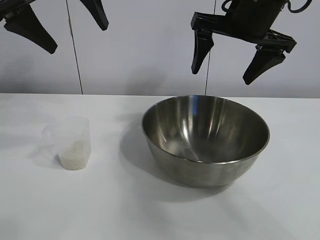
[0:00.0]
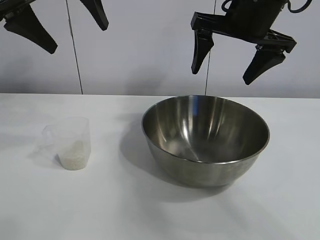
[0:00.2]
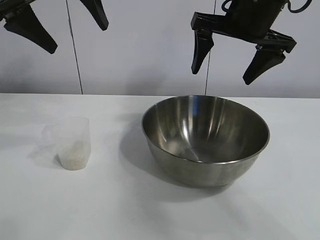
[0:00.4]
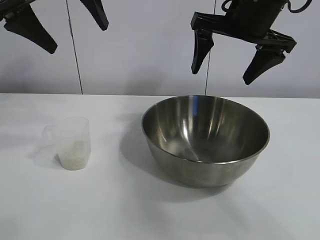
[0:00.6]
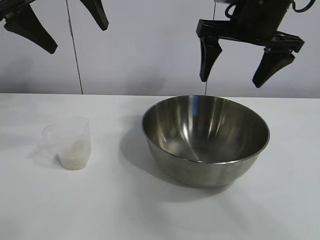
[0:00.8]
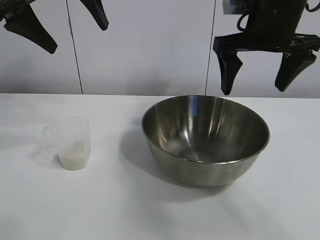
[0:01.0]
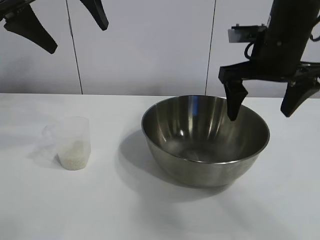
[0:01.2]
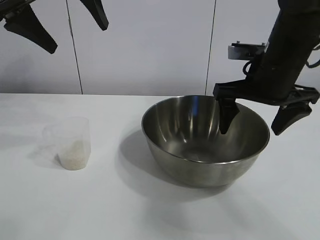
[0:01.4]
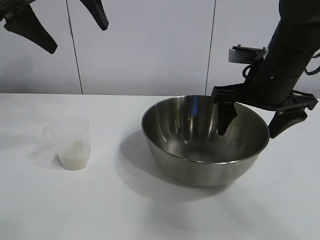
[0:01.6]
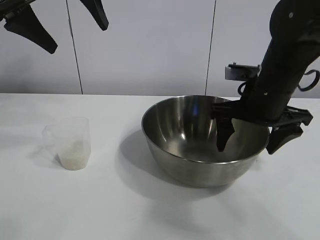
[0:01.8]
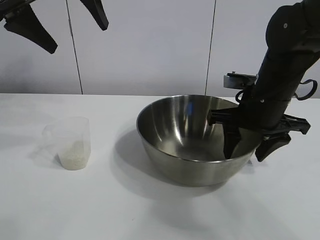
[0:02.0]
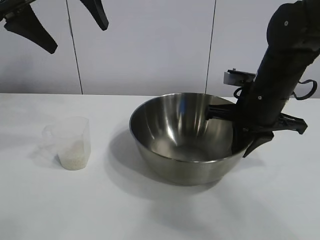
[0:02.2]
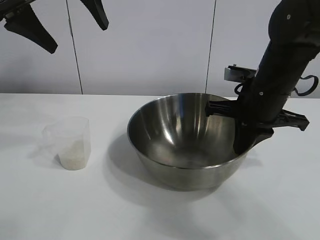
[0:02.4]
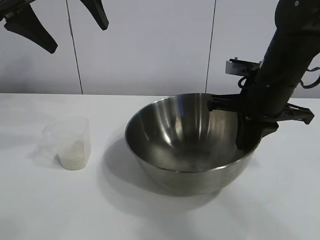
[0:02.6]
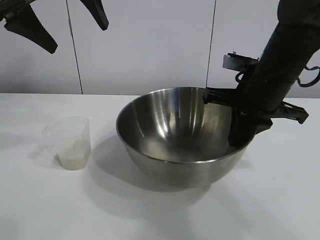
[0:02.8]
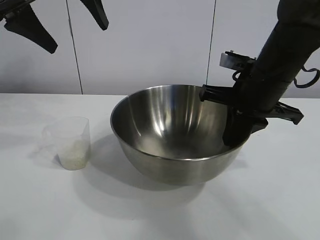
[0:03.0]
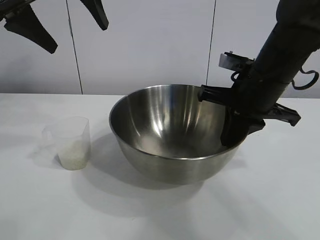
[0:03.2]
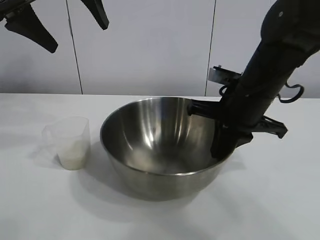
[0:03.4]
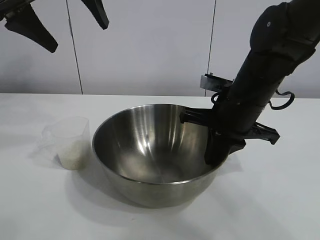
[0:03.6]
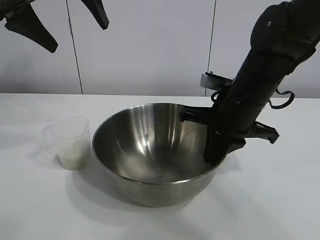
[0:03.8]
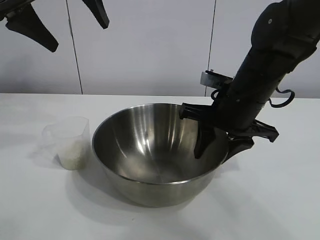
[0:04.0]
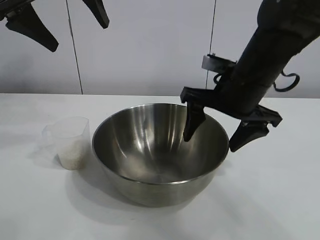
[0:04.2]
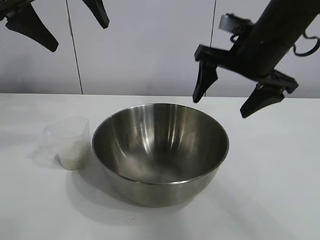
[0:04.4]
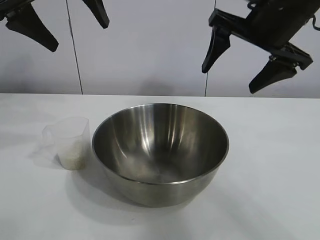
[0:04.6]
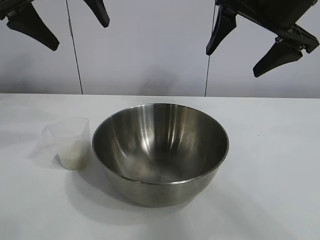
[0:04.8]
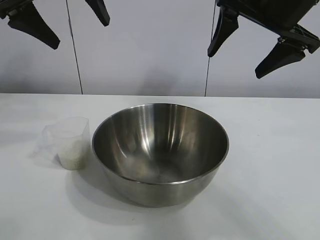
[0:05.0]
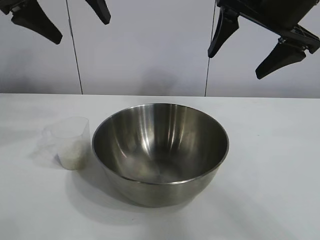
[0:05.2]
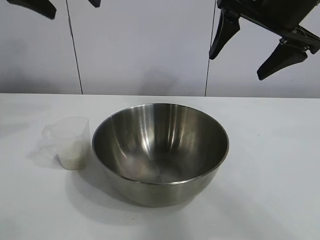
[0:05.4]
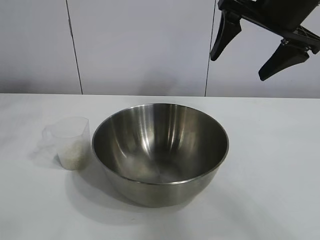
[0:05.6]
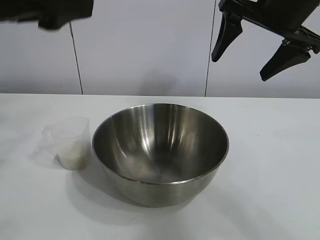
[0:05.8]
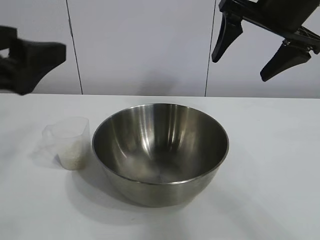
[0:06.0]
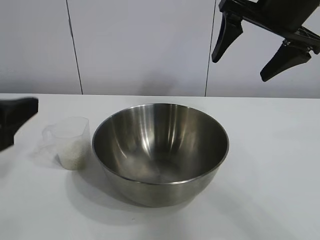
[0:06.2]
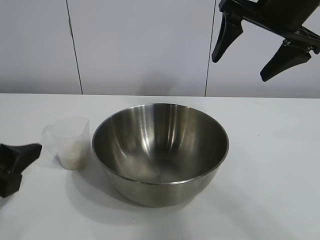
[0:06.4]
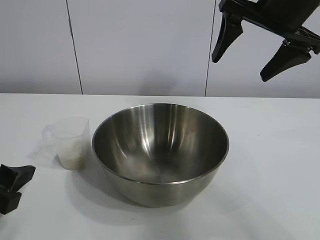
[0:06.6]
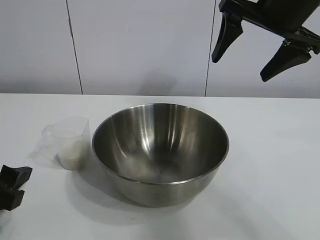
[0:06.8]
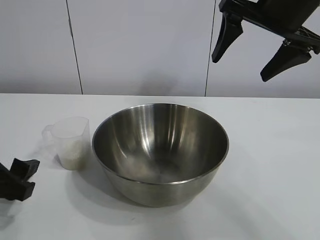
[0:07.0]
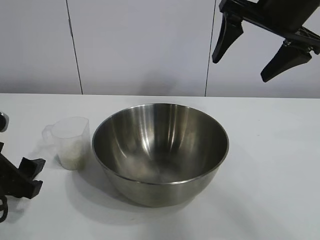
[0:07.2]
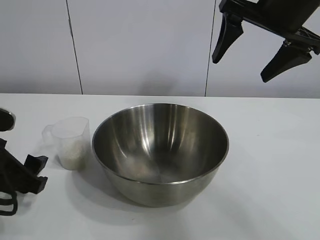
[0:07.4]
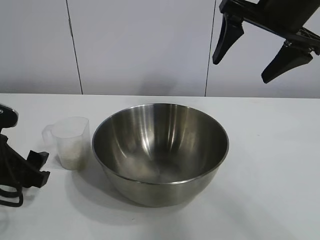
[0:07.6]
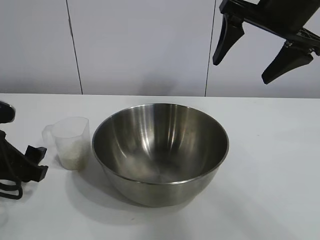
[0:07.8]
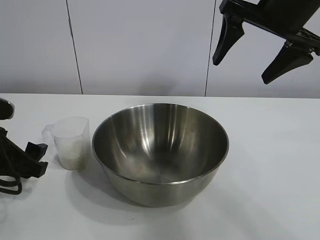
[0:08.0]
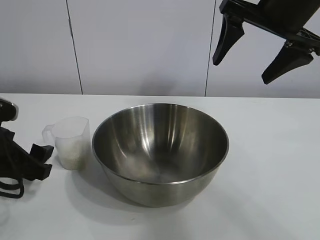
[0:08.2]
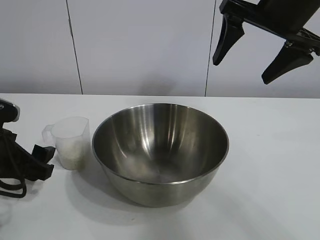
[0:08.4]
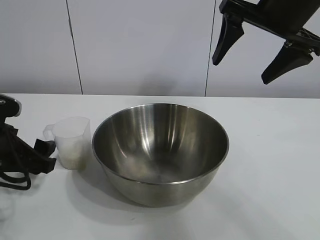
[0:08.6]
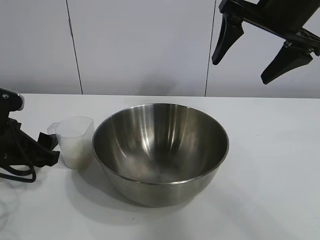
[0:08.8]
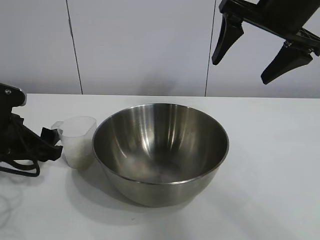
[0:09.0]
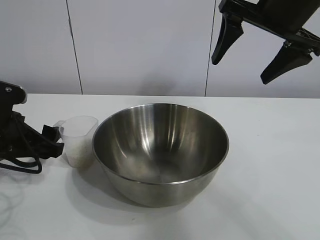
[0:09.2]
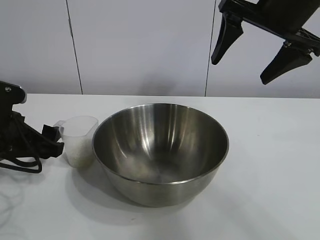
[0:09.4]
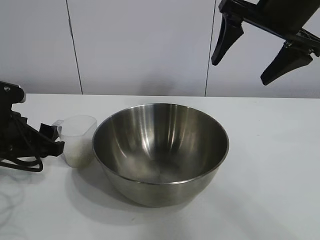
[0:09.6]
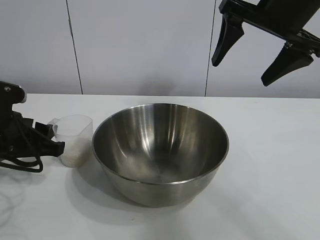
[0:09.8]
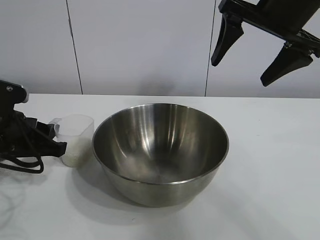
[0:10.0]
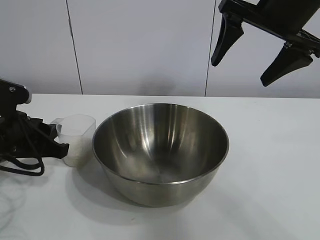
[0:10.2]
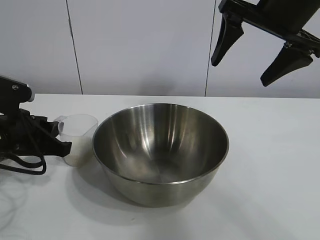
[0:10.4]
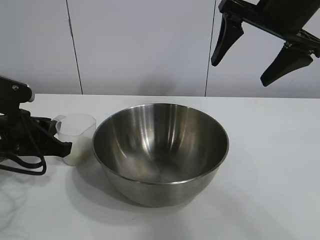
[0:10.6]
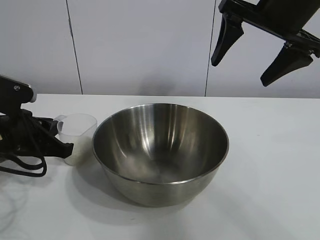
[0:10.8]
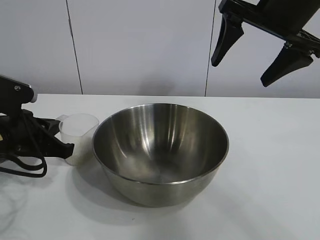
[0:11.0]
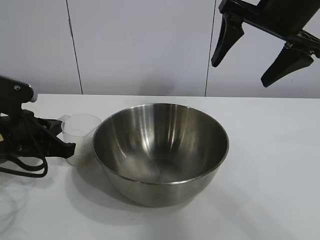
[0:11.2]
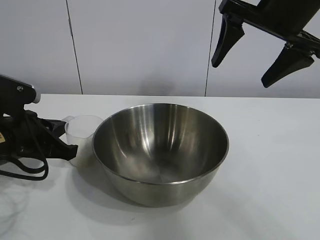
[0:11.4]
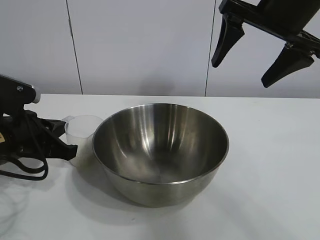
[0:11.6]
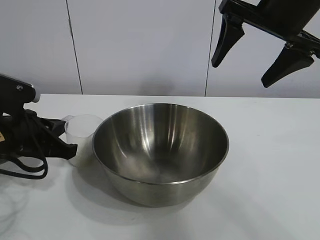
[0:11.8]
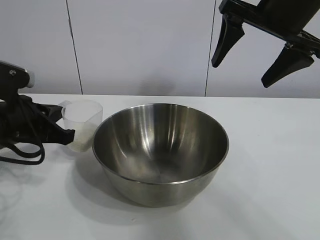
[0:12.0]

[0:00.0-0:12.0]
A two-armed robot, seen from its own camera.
Task of the whole recording: the right gripper grasp the rice container and place it in the center of the table, the left gripper grasp the rice scoop and pour the rice into the rice container.
Step, 0:00.8 to 0:04.2: Move the bowl in the center of view with right gripper.
Step, 0:04.4 to 0:11.2: Grasp the cup with rice in it with left gripper.

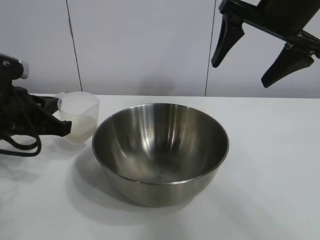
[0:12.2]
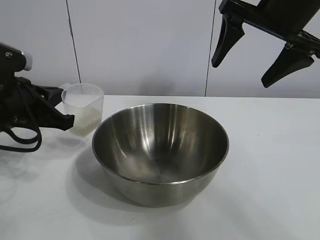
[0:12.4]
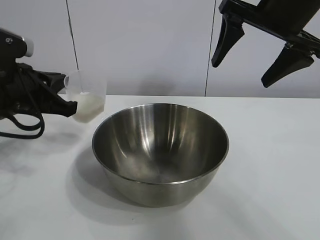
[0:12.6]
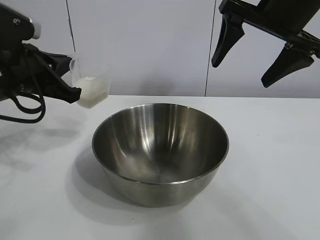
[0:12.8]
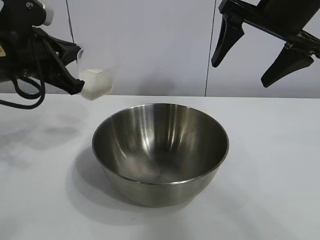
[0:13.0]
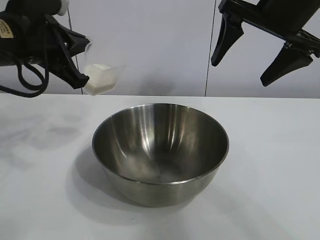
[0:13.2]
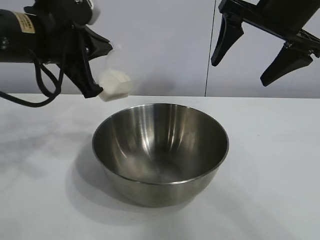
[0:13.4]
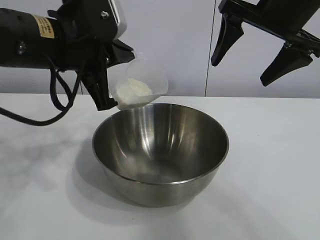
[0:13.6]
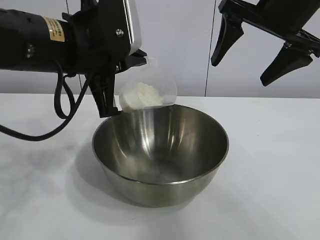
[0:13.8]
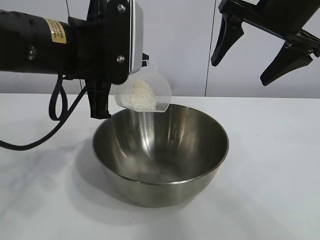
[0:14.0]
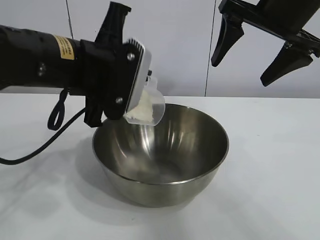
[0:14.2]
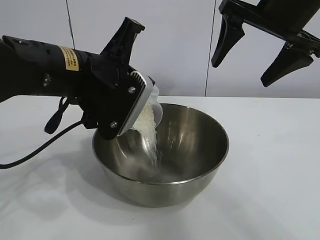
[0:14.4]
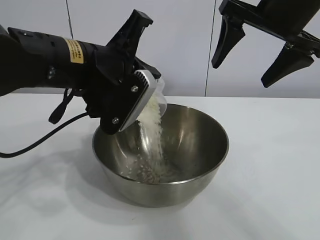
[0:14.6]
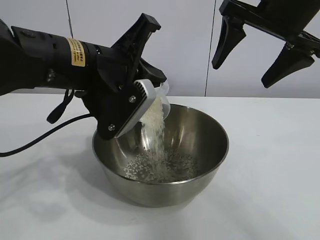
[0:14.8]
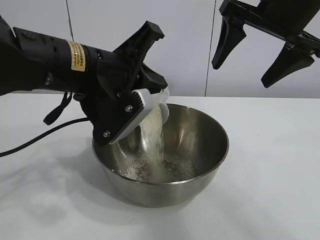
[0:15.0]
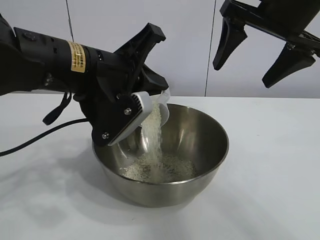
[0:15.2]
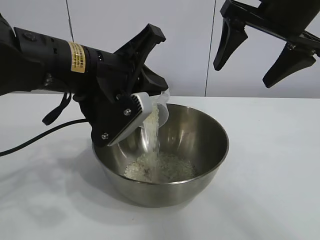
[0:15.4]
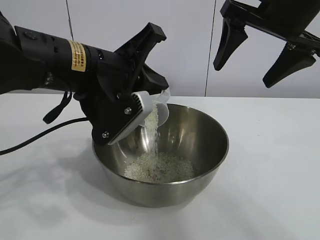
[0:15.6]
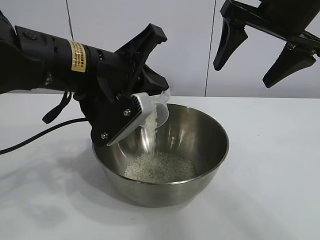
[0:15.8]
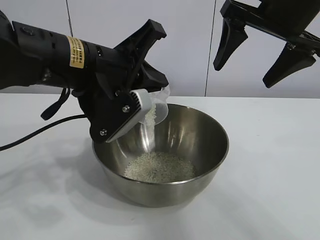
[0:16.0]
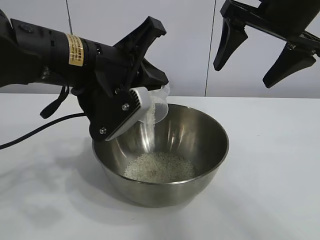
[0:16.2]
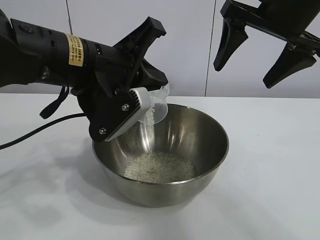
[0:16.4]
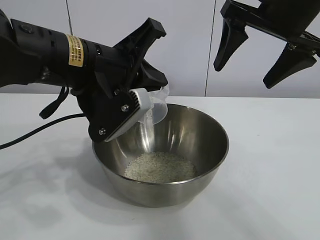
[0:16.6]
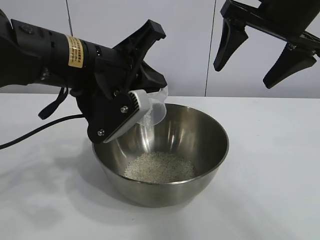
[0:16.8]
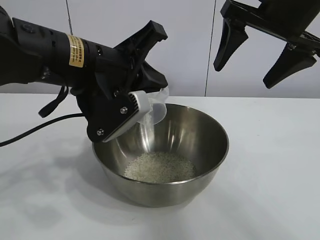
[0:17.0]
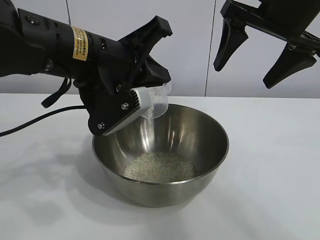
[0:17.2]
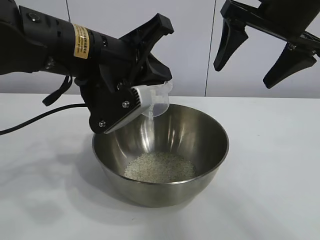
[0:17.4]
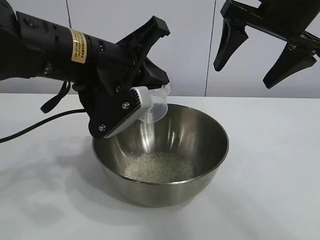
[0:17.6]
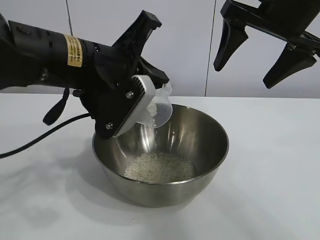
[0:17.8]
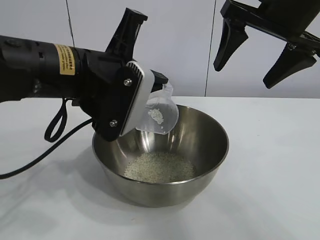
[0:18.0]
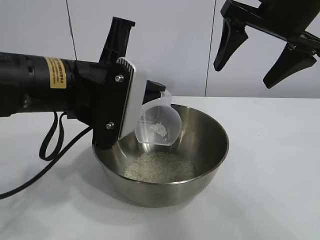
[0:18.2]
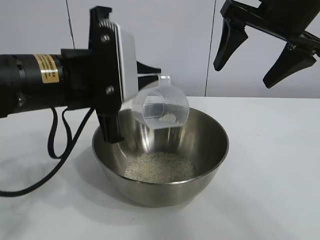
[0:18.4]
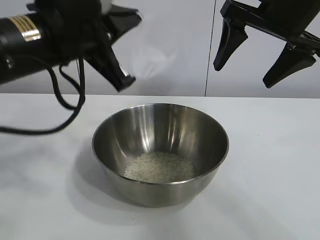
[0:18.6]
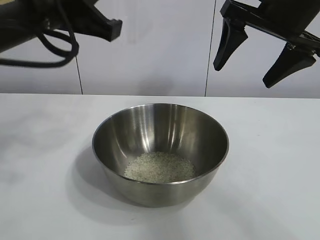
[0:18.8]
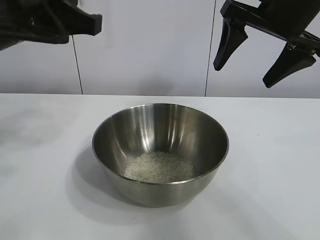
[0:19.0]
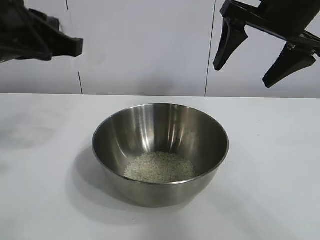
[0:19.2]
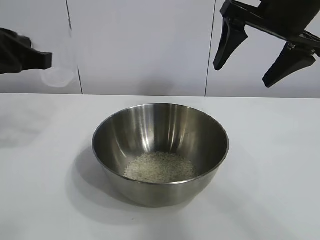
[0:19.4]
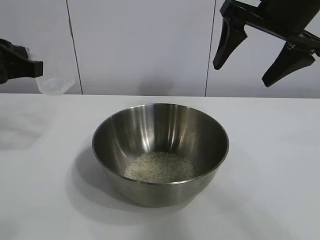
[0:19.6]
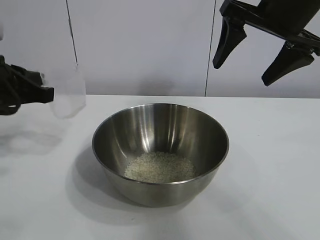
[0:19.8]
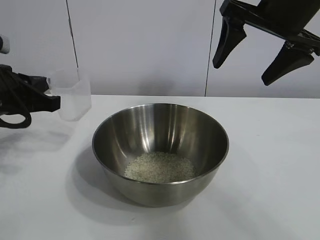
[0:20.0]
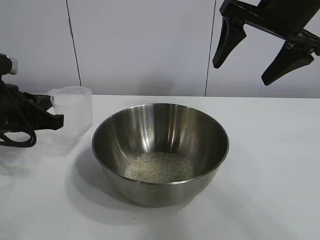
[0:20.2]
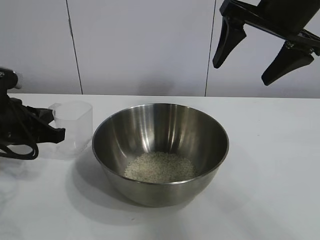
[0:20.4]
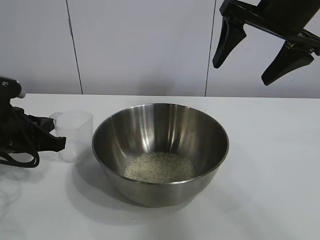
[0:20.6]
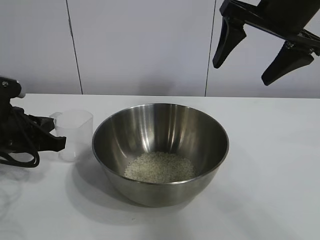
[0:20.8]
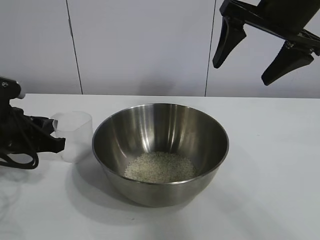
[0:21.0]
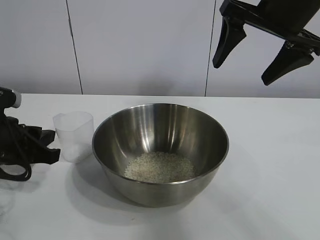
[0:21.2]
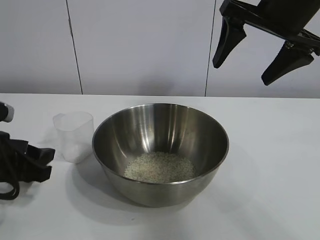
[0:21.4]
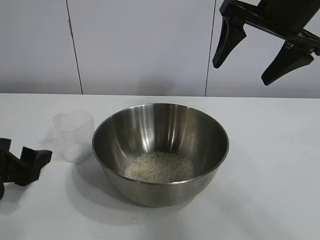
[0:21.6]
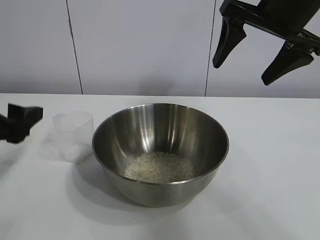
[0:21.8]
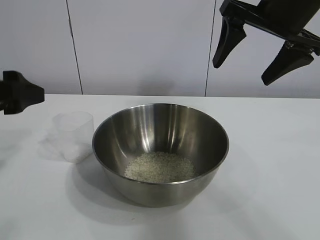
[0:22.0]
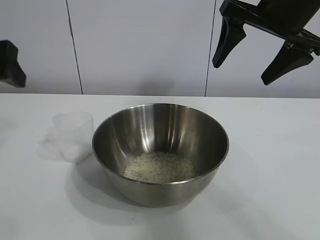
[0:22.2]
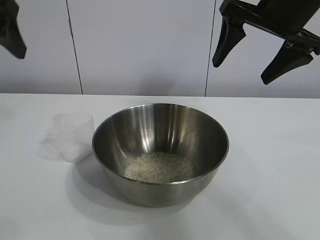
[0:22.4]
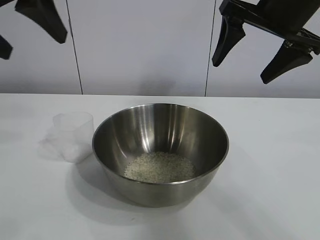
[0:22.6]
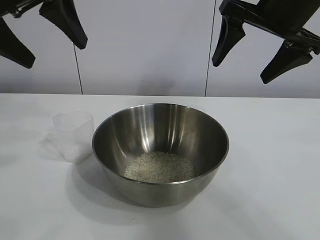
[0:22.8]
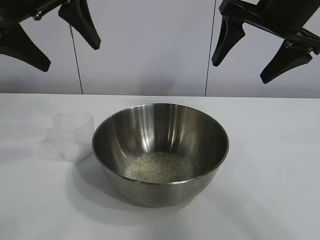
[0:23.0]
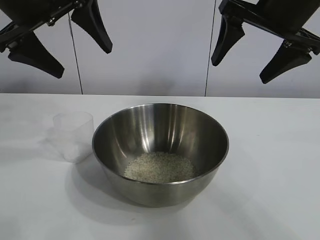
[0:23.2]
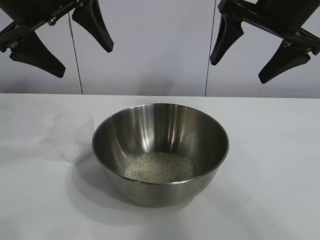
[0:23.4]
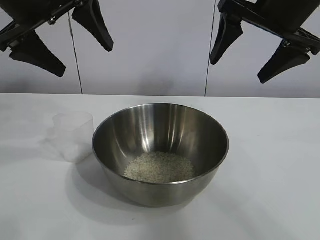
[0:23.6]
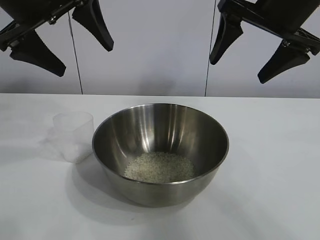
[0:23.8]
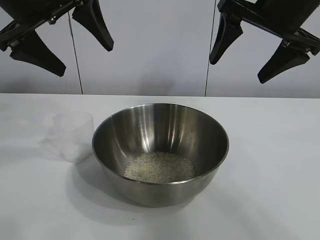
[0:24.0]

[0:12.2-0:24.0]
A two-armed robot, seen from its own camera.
Task of the whole recording: the right gripper grasp the rice container and place it in the center of the table, the left gripper grasp the rice scoop and pour the rice into the rice container.
Step, 0:12.2 to 0:17.6: Pour the rice from the cup into the bowl with the left gripper.
Step, 0:18.0 to 0:20.8: Place the cup on the table with the left gripper.
